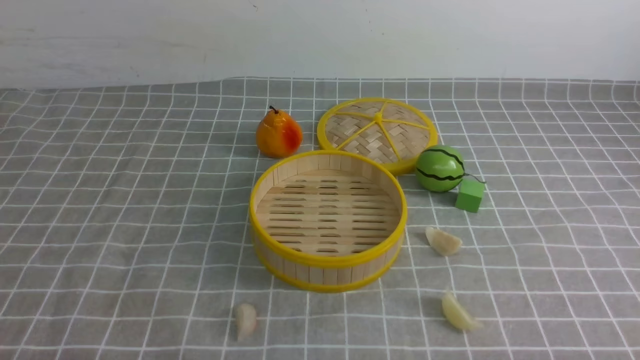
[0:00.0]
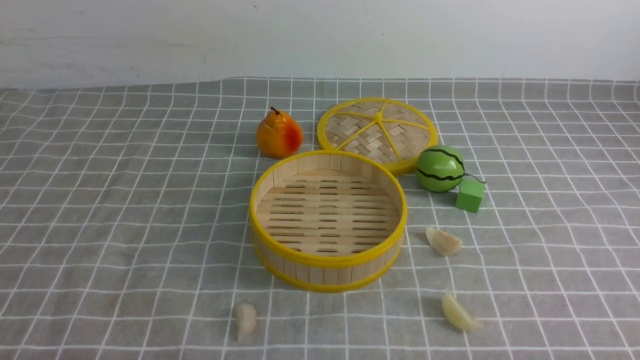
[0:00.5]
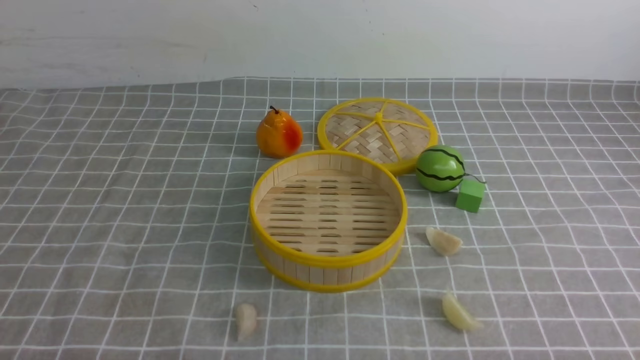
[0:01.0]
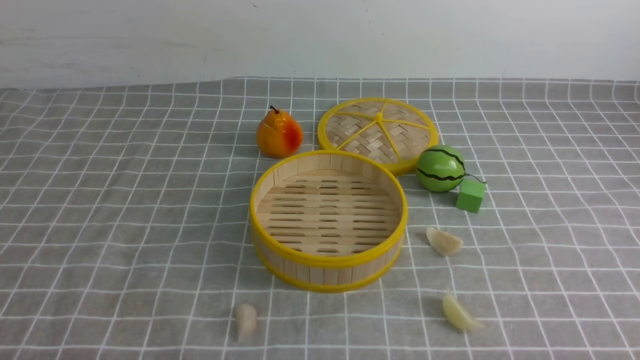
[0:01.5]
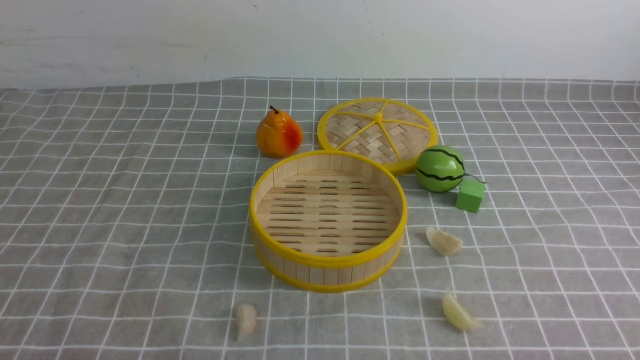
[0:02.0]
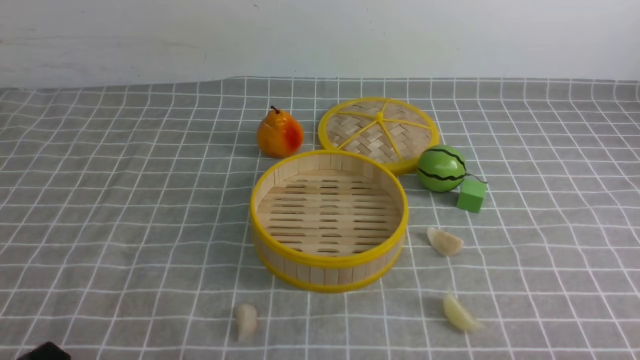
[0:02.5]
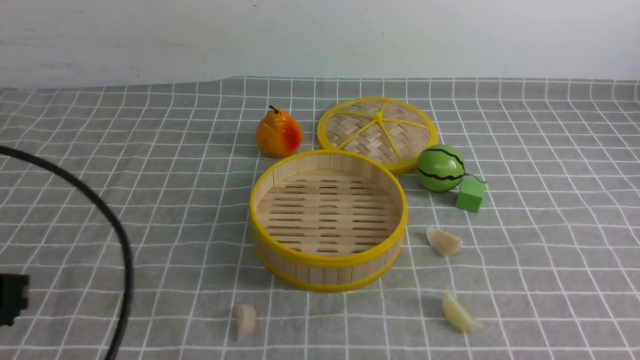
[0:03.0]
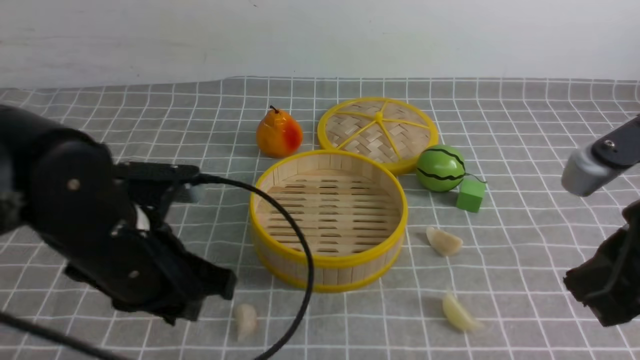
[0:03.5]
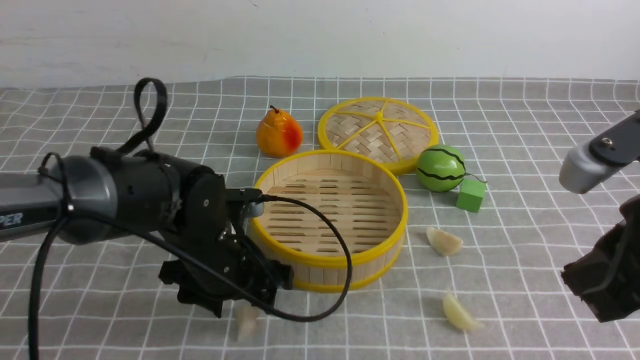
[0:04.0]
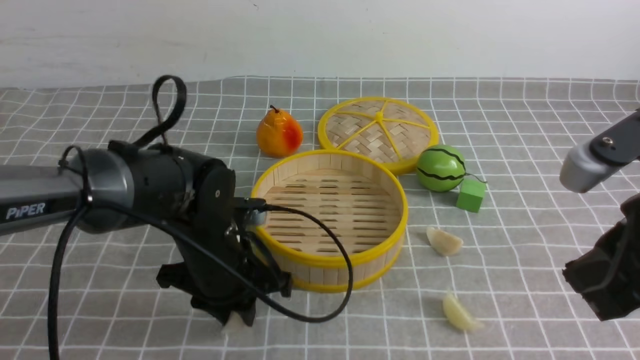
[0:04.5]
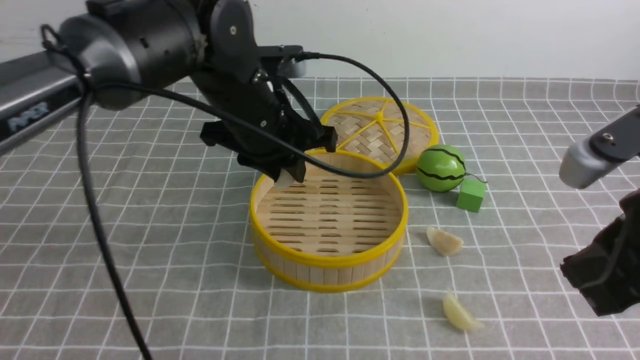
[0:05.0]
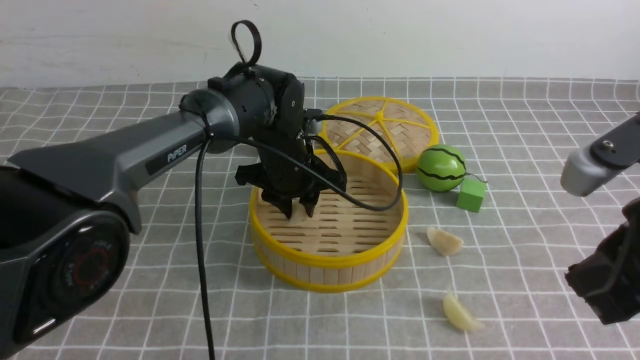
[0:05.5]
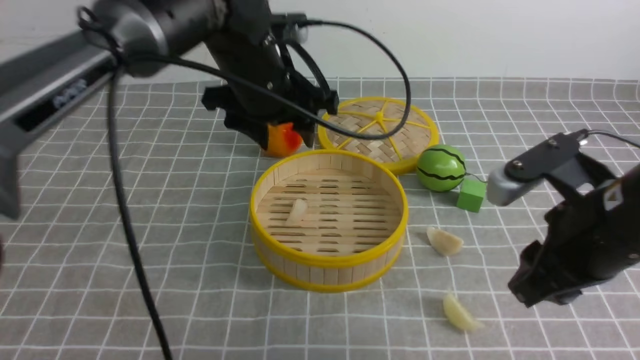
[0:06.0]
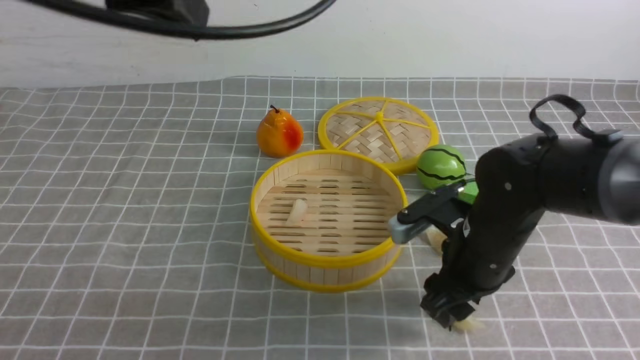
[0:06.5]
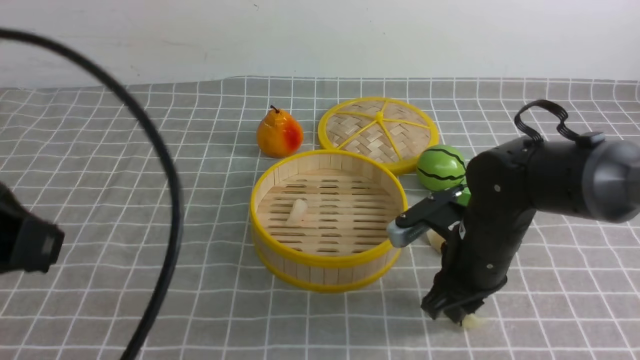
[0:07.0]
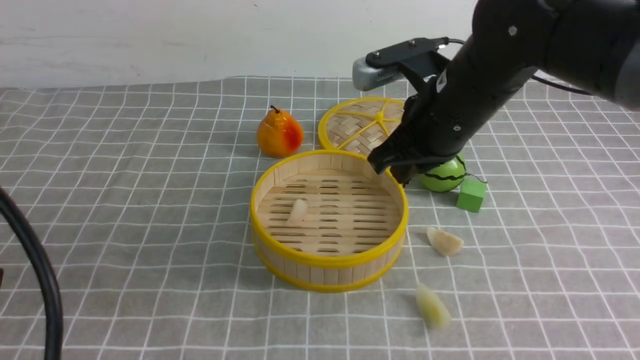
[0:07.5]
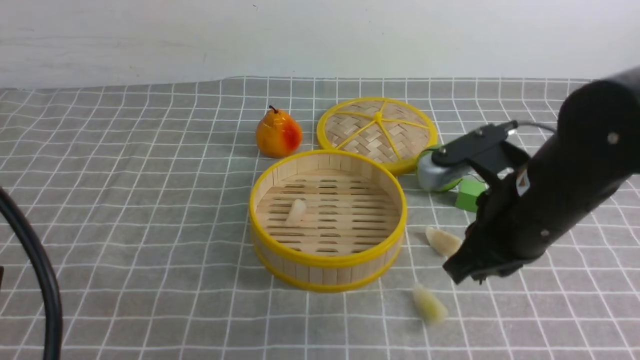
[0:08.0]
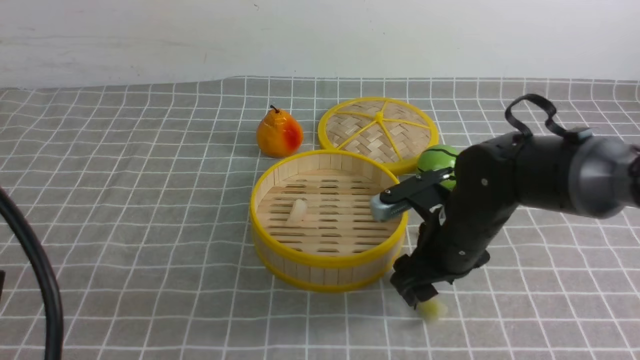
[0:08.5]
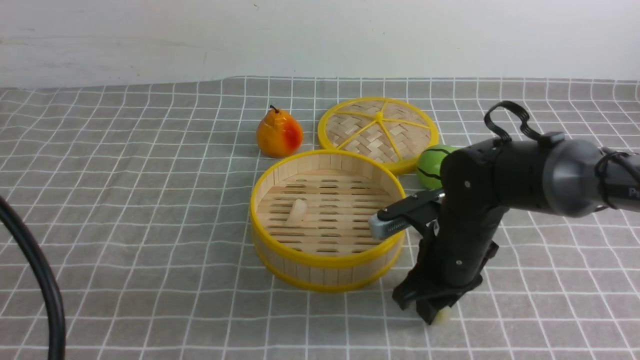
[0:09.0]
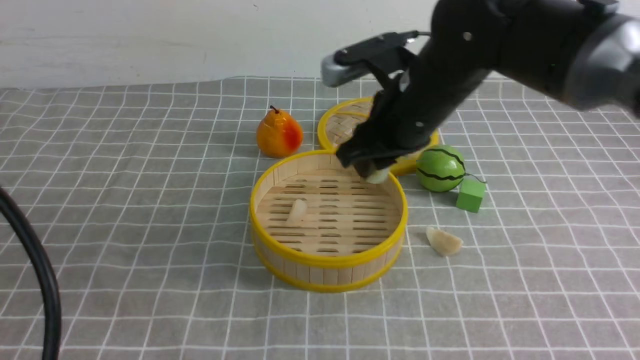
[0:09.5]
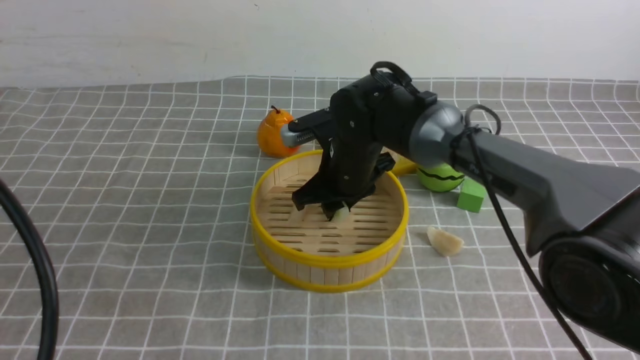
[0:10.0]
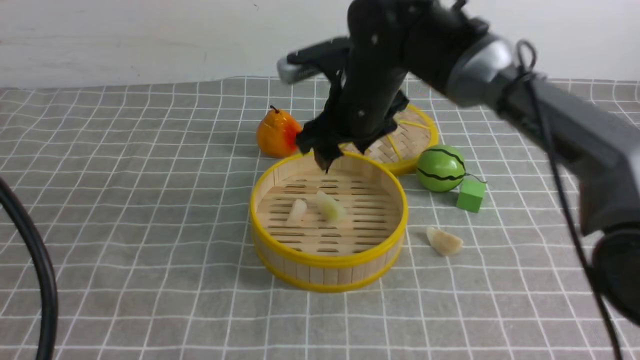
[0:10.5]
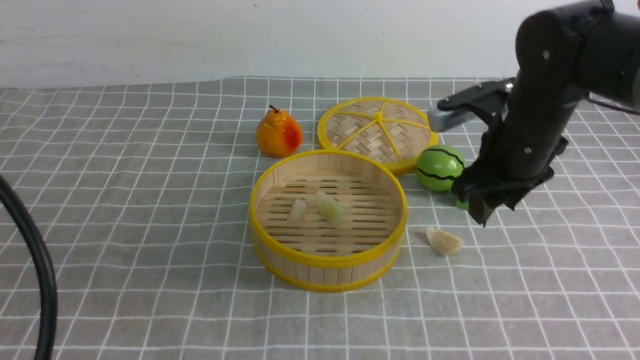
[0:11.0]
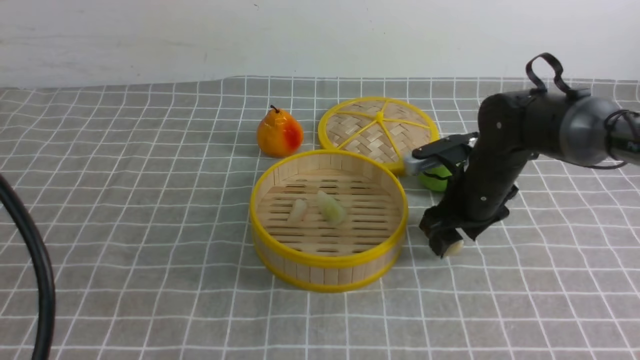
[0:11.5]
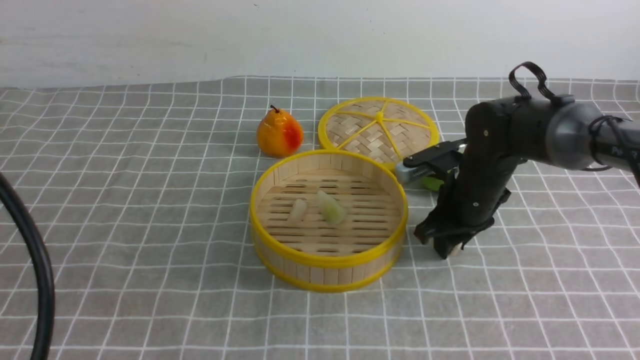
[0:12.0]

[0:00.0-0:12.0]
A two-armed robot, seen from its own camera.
Task of the whole recording: put the dumplings into the steamer on the table with the grey tablecloth.
Step, 0:00.0 to 0:04.5: use the left arm to grab a dumpling.
Step, 0:05.0 to 0:06.0: use the left arm to put the dumpling into the steamer.
Step, 0:06.5 to 0:09.0: use the right arm to grab a dumpling.
Step, 0:09.5 to 0:10.5: use the right arm to put the dumpling into the steamer.
Step, 0:11.0 to 0:12.0: use the right arm to grab a dumpling.
0:02.0 to 0:04.0: The left gripper is displaced forward and to the right by approximately 30 cm, and opens its fingers. The right gripper heads upward, forward and to the left, covering approximately 20 cm, and closes up.
0:04.0 to 0:06.0: The right gripper travels forward and downward by approximately 10 cm, and opens up, while the left gripper goes up and down, roughly 15 cm each way, reversing 2 times, and closes, then opens again.
0:06.0 to 0:08.0: The right gripper swings up and down, some 10 cm each way, with 2 reversals, and closes up, while the left gripper heads backward and to the left, covering some 35 cm, and closes.
0:08.0 to 0:10.0: The right gripper is displaced forward, to the left and downward by roughly 20 cm, and opens.
0:10.0 to 0:12.0: The right gripper heads to the right, covering some 15 cm, and opens and closes again.

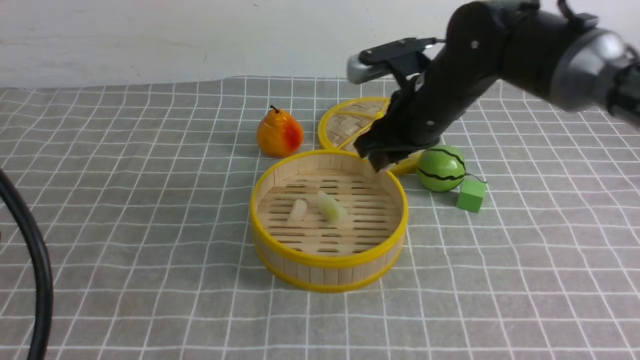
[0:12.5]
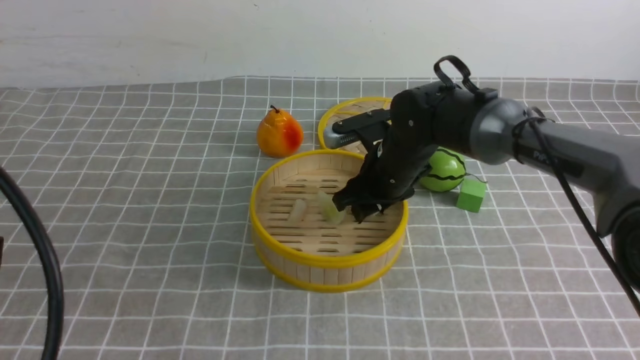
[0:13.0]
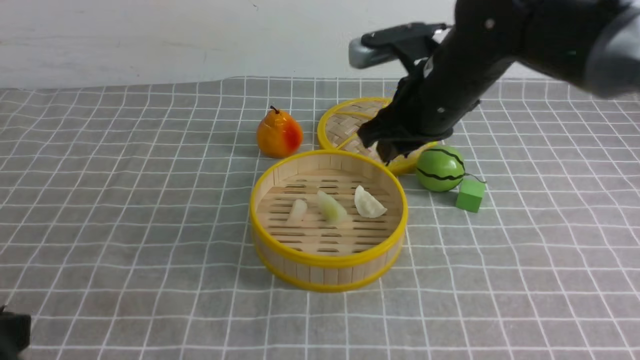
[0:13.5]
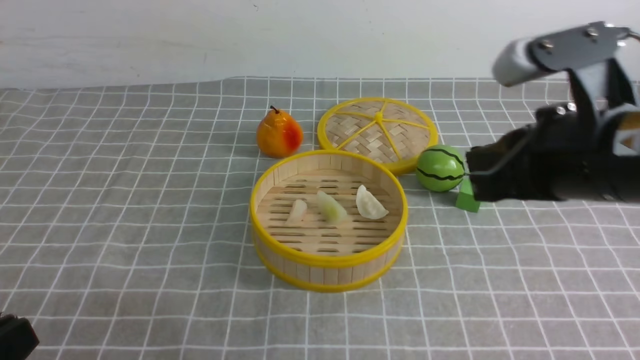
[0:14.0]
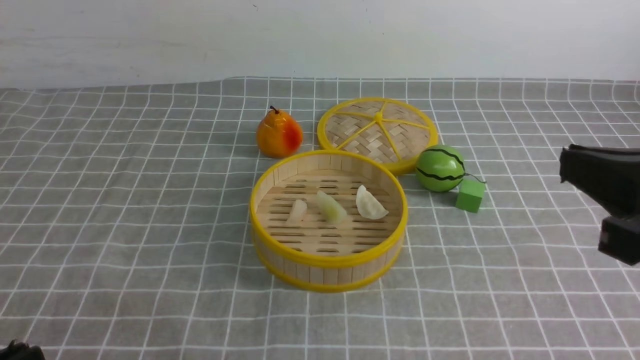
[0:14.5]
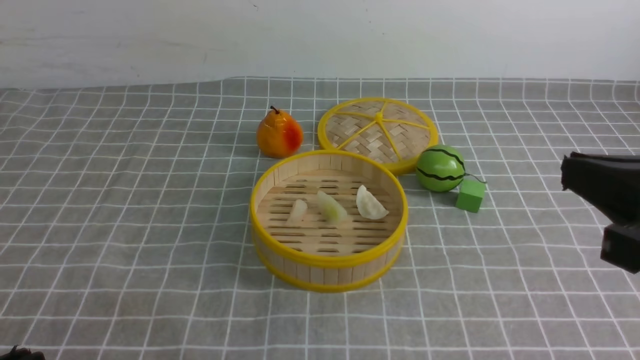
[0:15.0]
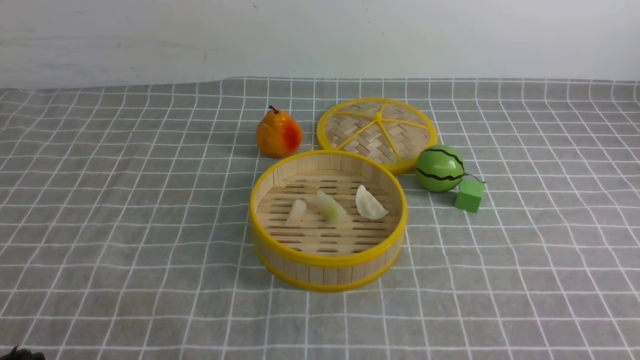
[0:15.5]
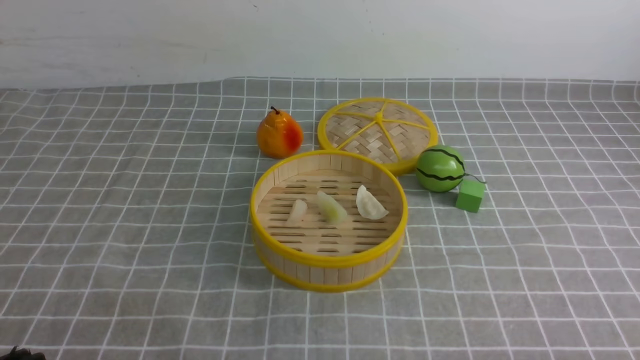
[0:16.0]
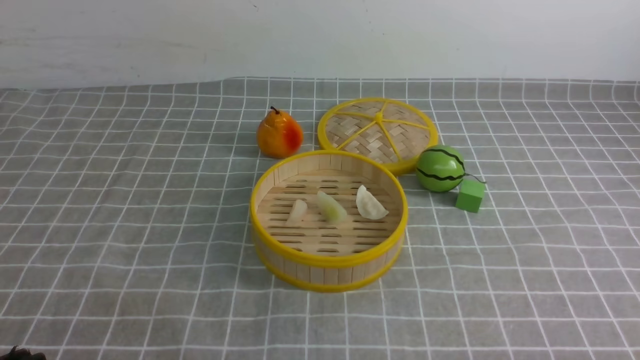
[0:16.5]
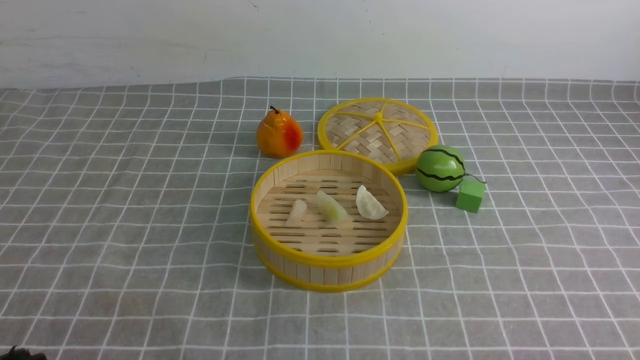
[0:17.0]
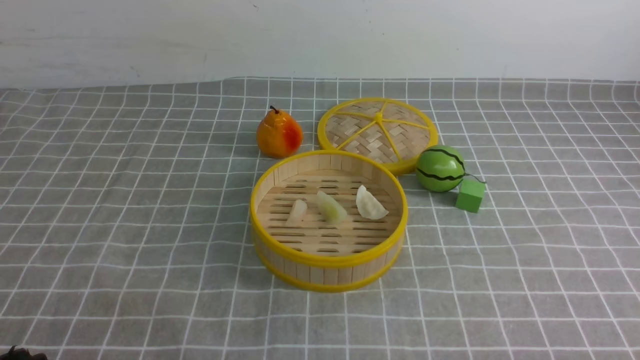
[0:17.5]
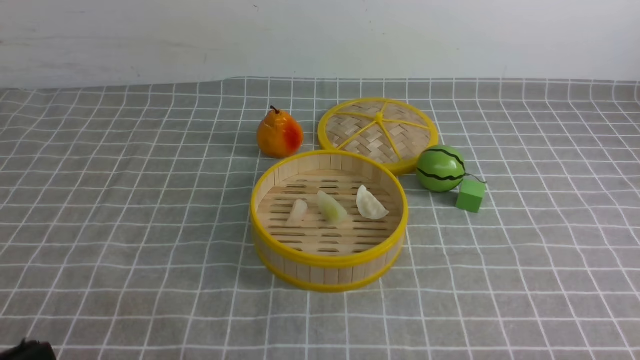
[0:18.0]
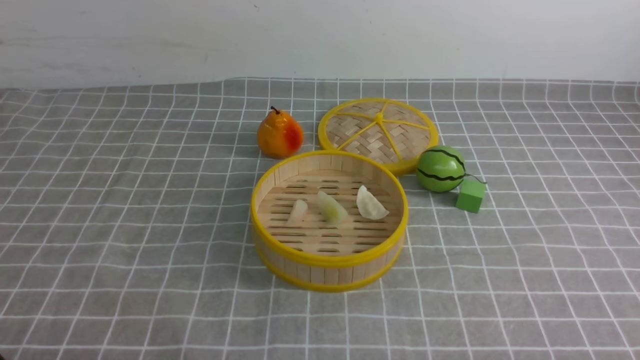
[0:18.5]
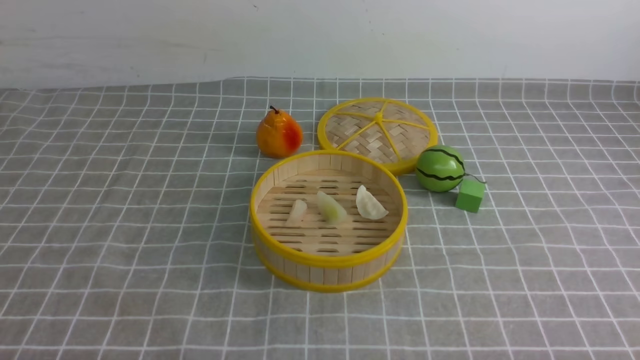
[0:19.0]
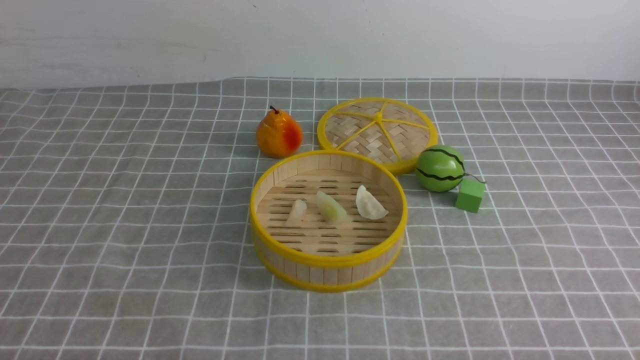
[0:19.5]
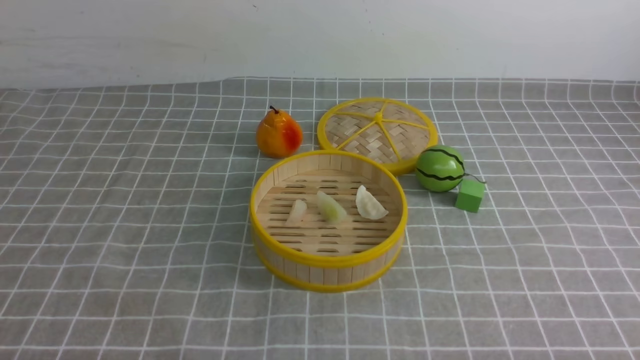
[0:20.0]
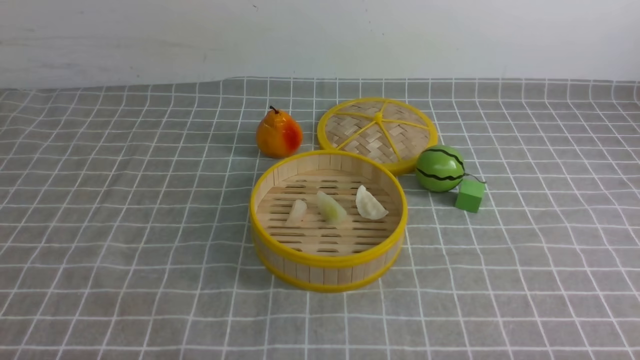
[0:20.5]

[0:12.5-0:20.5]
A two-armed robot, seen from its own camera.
Task of the whole recording: put the dumplings into the steamer on the table with the grey tablecloth.
Step, 0:12.5 to 0:13.5: use the right arm to put the dumpling into the steamer.
0:12.5 to 0:14.5: The right gripper is displaced backward and to the right by roughly 30 cm, and closes. The left gripper heads downward, covering some 15 cm.
0:14.5 to 0:16.5: The right gripper shifts some 20 cm downward, backward and to the right.
